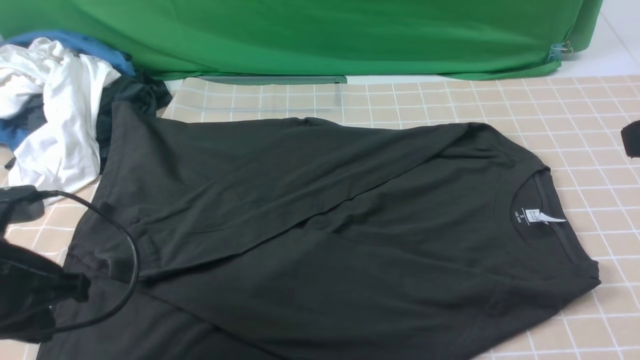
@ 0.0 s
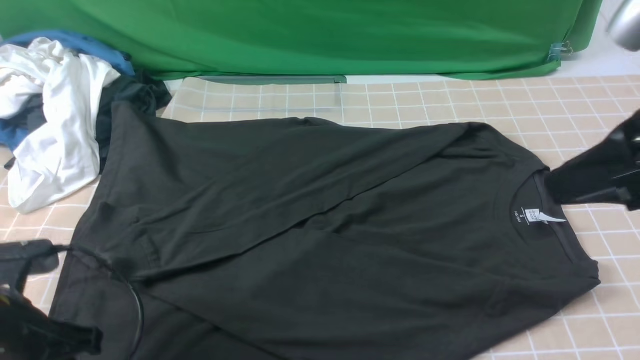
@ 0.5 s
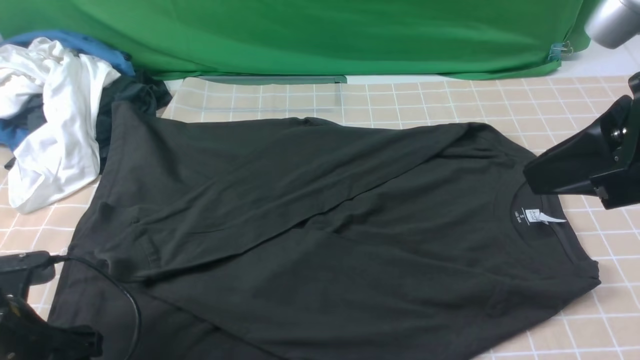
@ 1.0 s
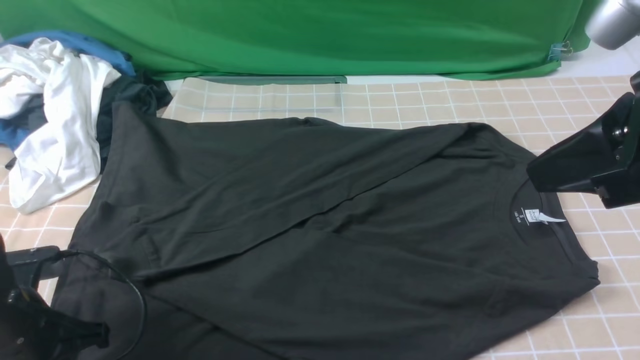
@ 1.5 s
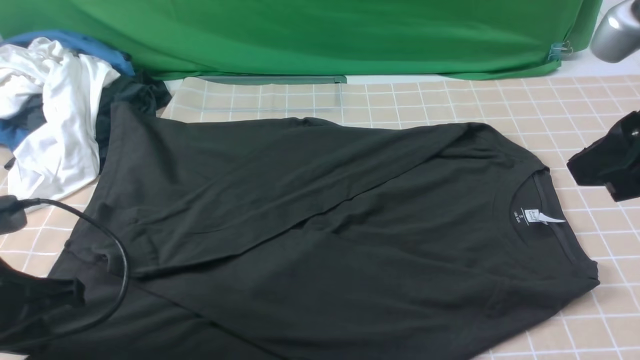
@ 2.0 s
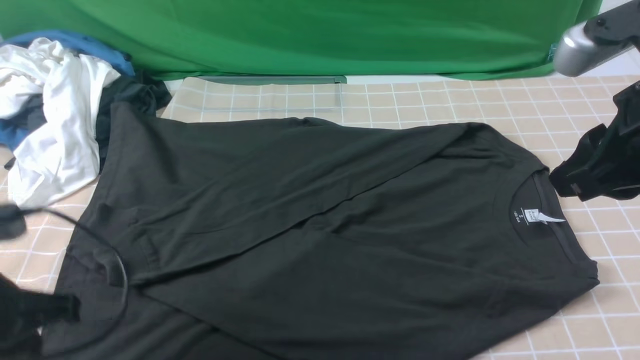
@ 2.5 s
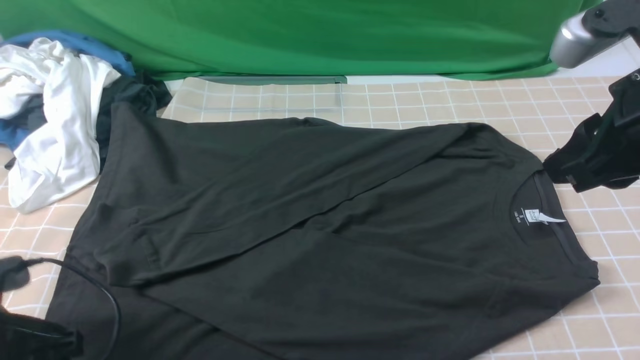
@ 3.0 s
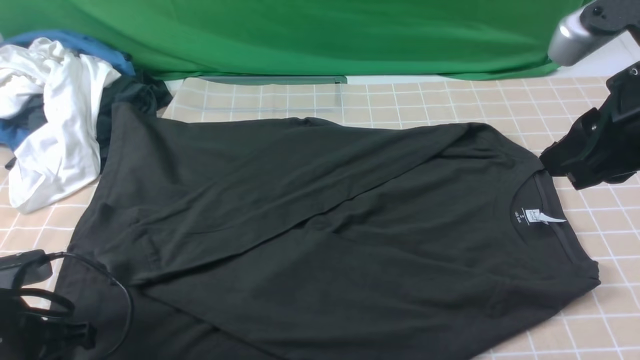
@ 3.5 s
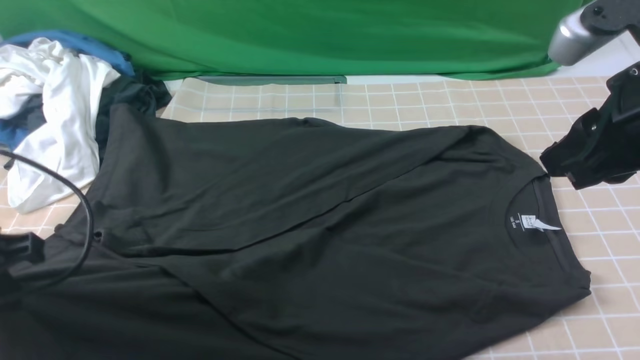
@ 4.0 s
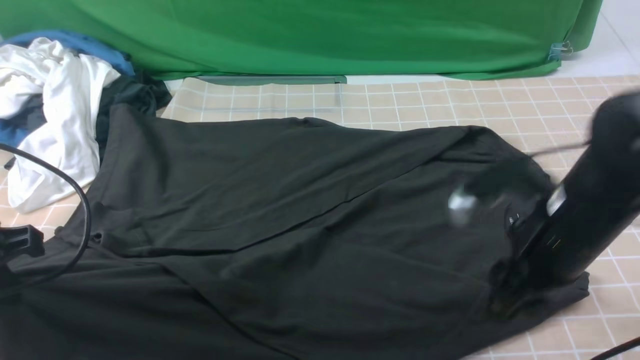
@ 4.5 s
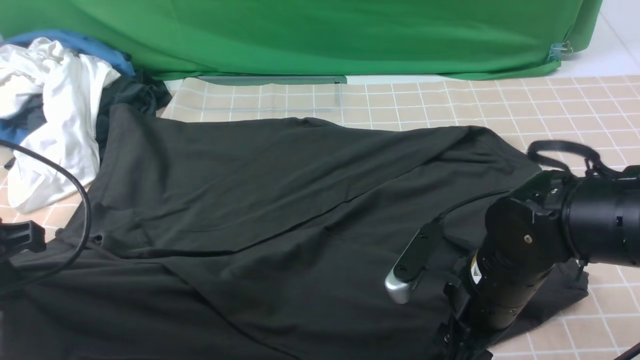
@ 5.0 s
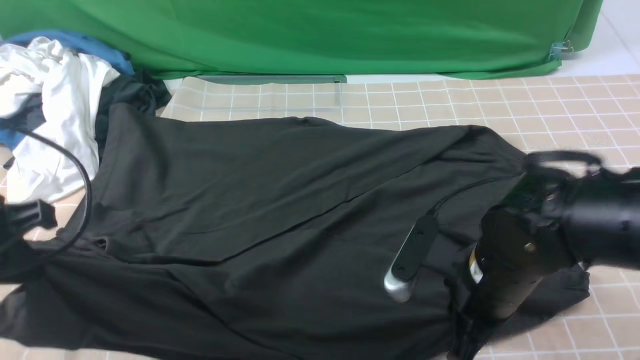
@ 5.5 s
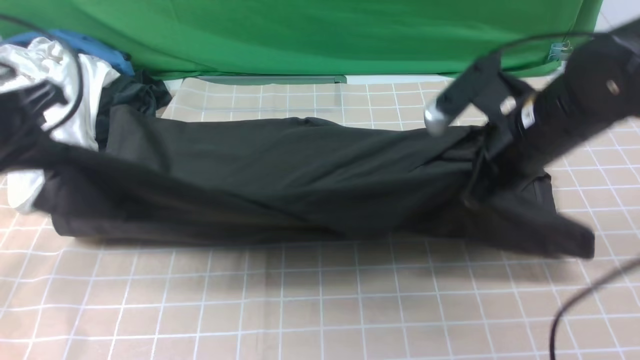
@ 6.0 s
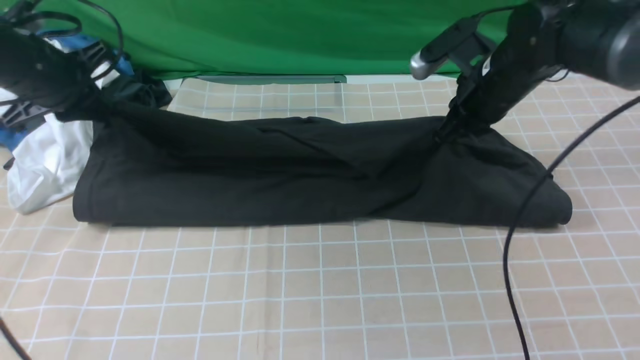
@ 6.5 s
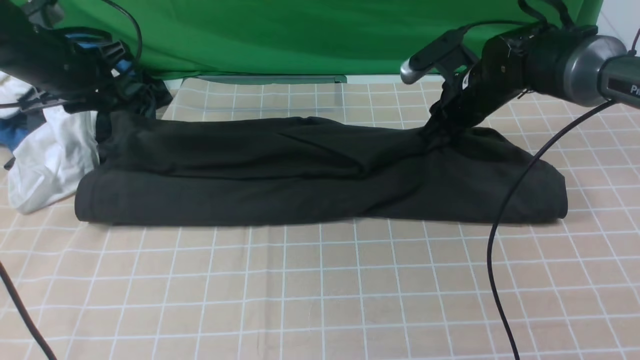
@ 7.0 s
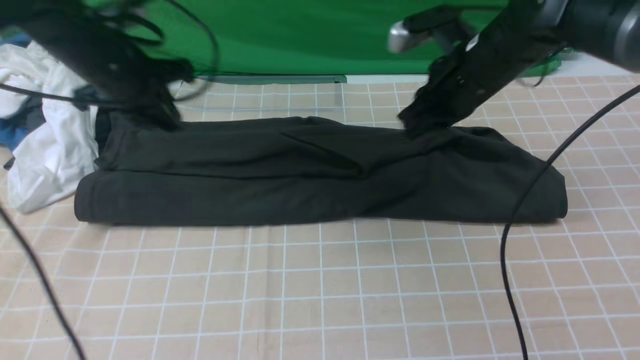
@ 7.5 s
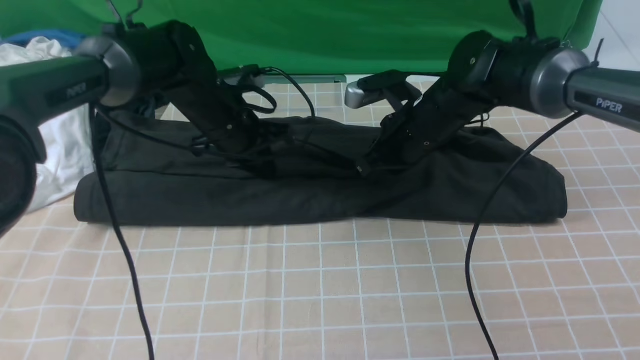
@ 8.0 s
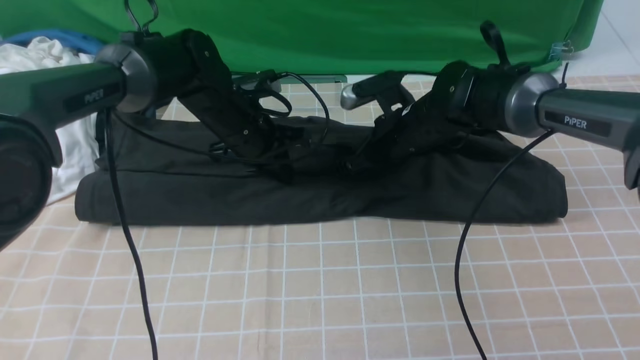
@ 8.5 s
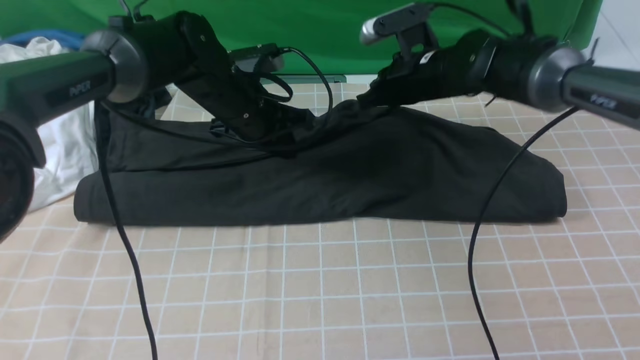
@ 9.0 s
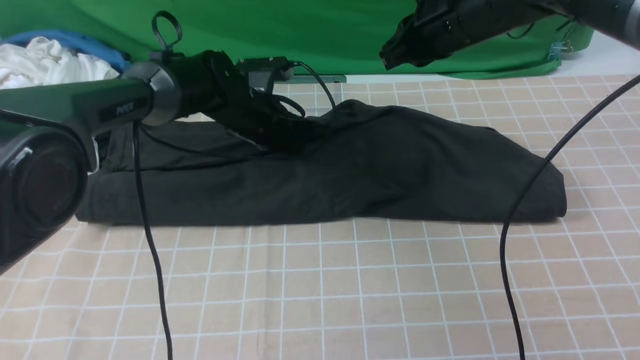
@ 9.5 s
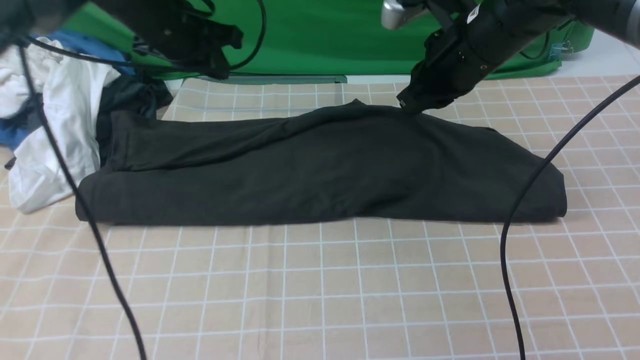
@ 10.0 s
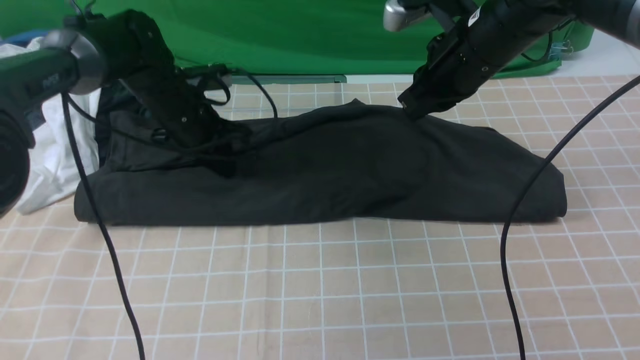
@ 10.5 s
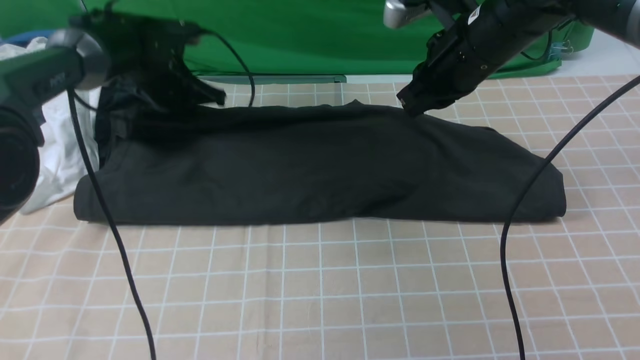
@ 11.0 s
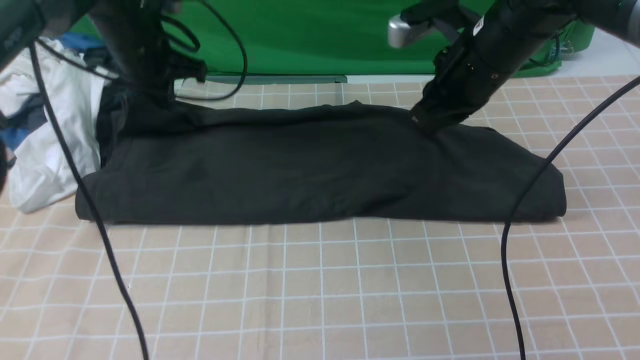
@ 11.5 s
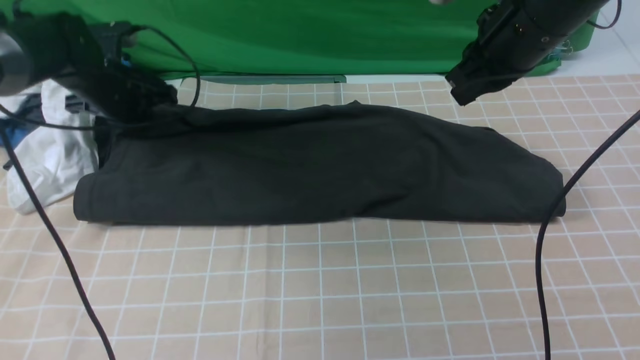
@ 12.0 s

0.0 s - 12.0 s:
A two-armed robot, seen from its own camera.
Step, 0.0 s - 5.0 s: use both arms simultaneously to clamp the lower edge of the clothing fabric.
Step, 5.5 s - 11.0 s: use both arms to drag the lower edge of the fabric forward and fold it over the upper edge.
0.0 s - 2.0 s: The left gripper opens, then closes again.
2.0 s - 4.0 s: The left gripper opens and closes again.
4.0 s - 6.0 s: The left gripper moves forward, some 10 cm; the right gripper moves forward and downward, some 10 cm, and opens, then closes once more.
6.0 s - 8.0 s: The left gripper goes roughly 25 cm to the right, forward and downward, while the right gripper is displaced forward, downward and to the left by roughly 15 cm, and opens, then closes again.
8.0 s - 10.0 s: The left gripper goes approximately 10 cm upward and to the left, while the right gripper moves upward, some 10 cm.
10.0 s - 12.0 s: The right gripper changes place by approximately 5 cm. Meanwhile the left gripper moves to the left and downward, roughly 10 cm.

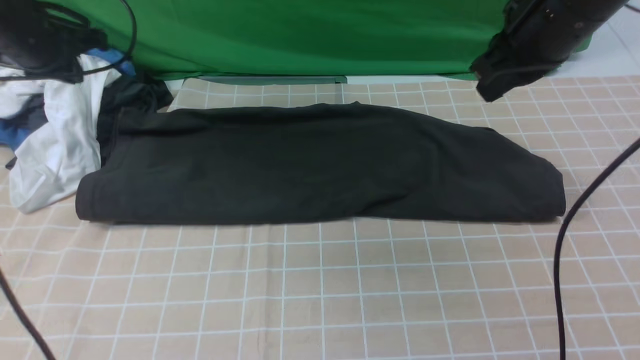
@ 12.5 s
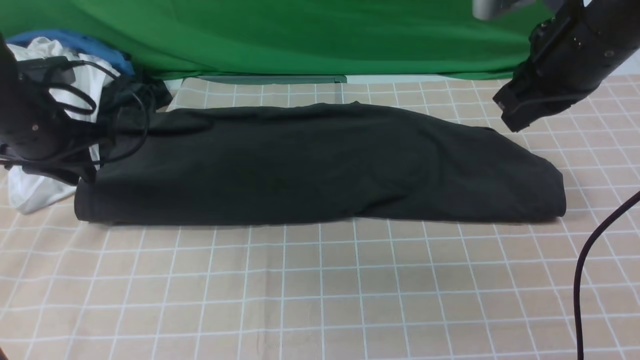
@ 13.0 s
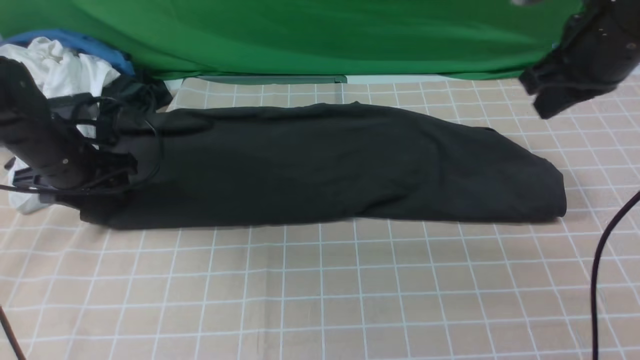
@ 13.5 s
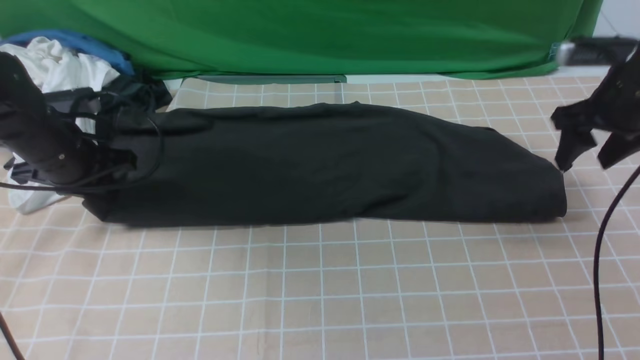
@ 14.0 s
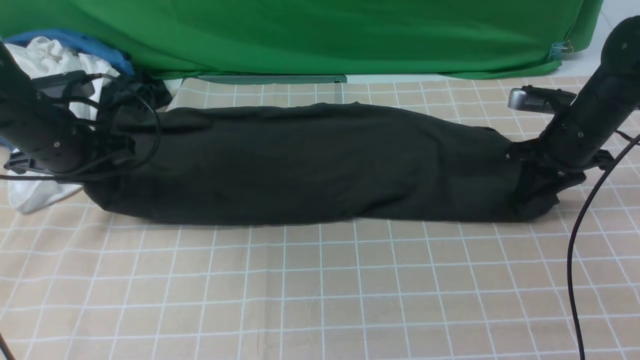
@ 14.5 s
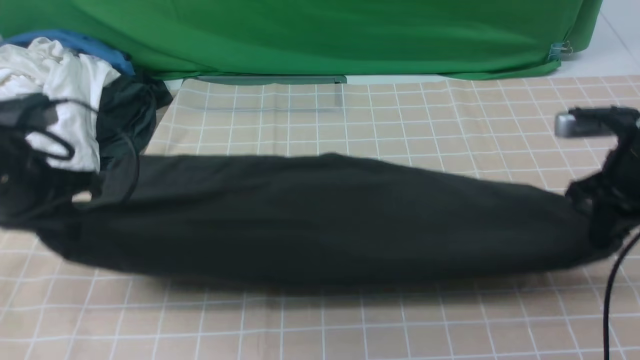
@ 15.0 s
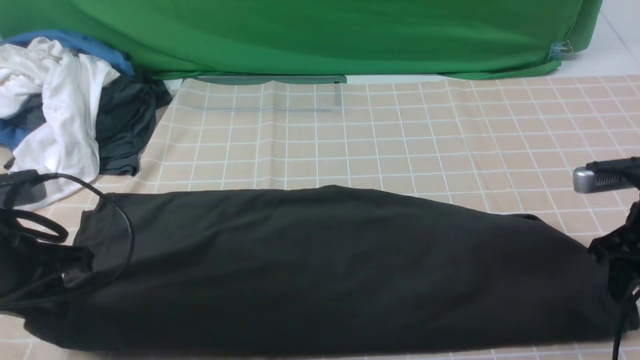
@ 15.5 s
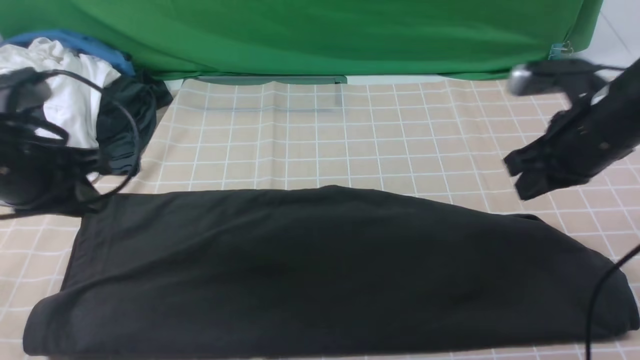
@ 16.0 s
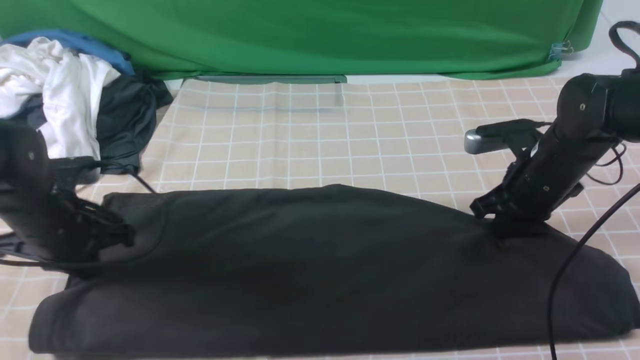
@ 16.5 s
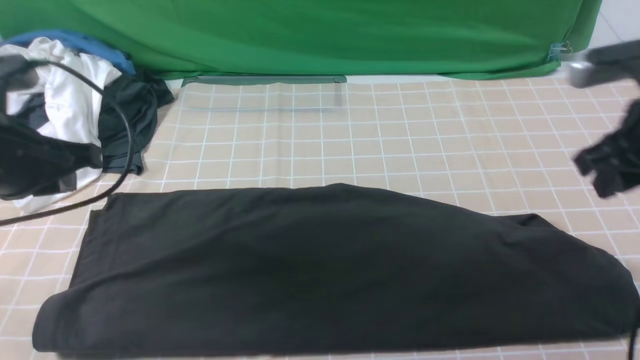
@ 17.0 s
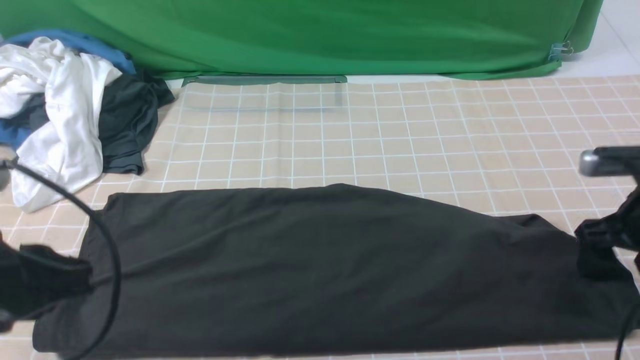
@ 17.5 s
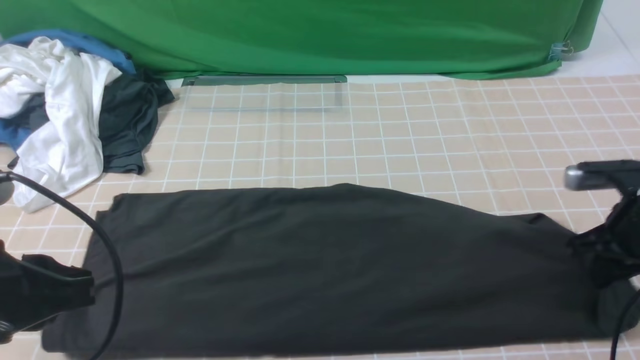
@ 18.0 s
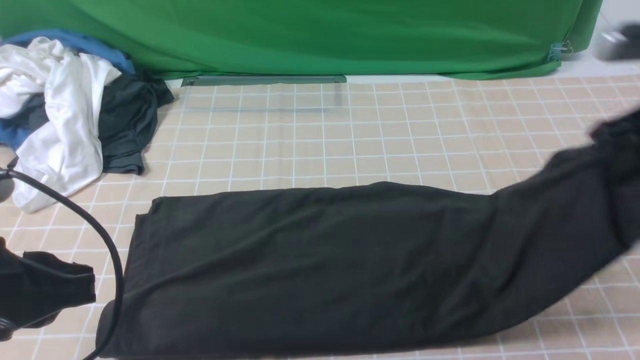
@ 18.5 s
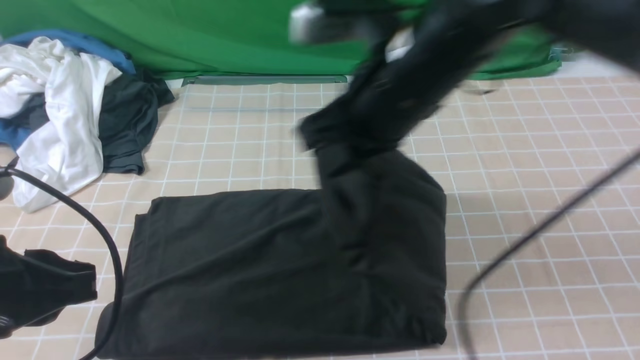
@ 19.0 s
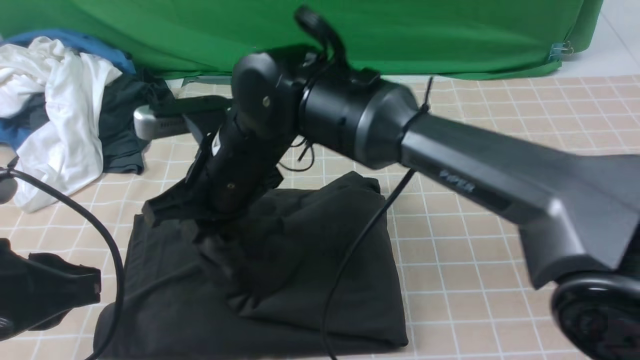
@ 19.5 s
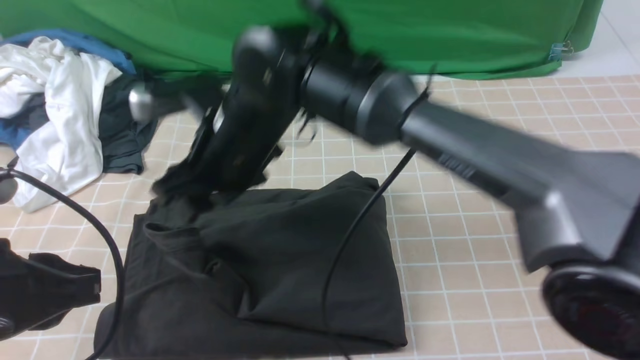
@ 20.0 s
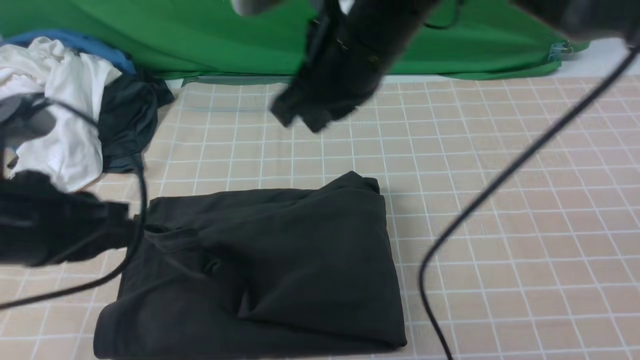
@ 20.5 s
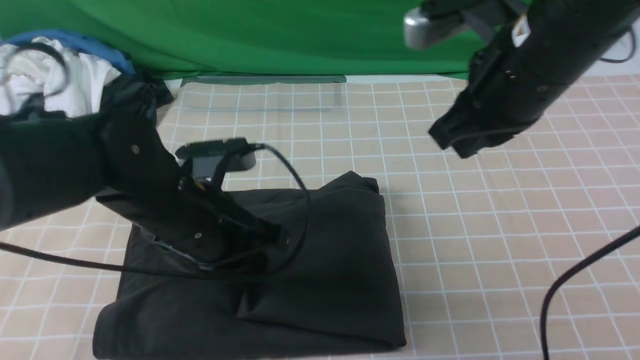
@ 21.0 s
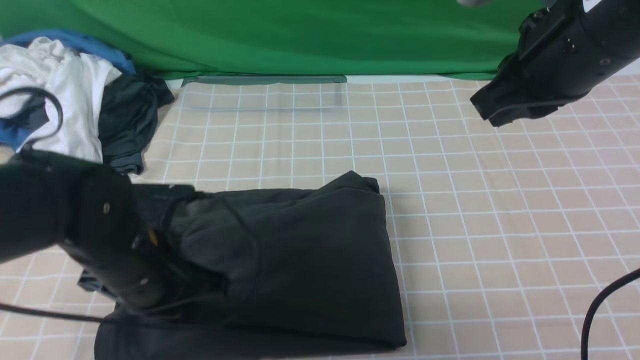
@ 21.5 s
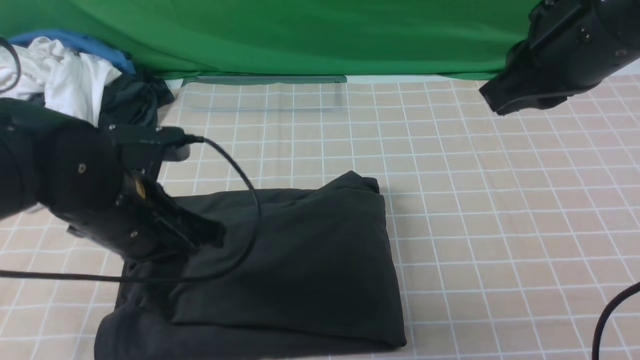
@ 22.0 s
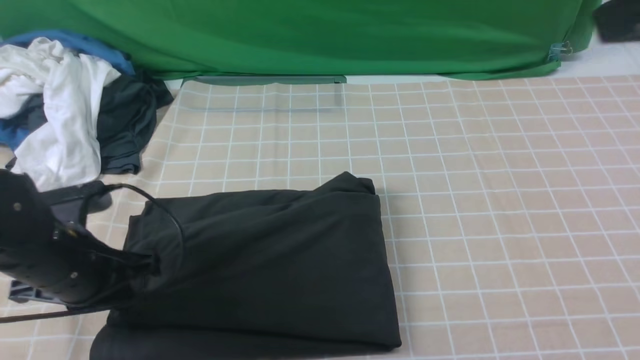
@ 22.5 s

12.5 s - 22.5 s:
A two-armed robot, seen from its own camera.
Step, 12.5 s - 17.5 s: use the right arm to clamp the right edge of the fabric.
Step, 18.0 s - 20.0 s: use the right arm to drag the right edge of the fabric to the left and folds it over the left edge.
12.5 s - 14.5 s: The left gripper heads backward and downward, covering about 10 cm, and opens, then closes again. The right gripper moves downward and to the right, some 20 cm, and opens up.
14.5 s - 16.5 s: The right gripper shifts some 10 cm to the left and backward, and closes up; the left gripper is displaced backward by roughly 5 cm.
16.5 s - 18.5 s: The left gripper is displaced backward and upward by about 20 cm. The right gripper goes up and down, approximately 15 cm each way, reversing 2 times, and opens, then closes again.
18.5 s - 20.5 s: The left gripper heads forward, covering roughly 5 cm; the right gripper goes roughly 20 cm to the left, and opens, then closes again.
20.5 s - 22.5 s: The right gripper travels to the right, backward and upward by roughly 25 cm; the left gripper moves downward, approximately 10 cm, and goes to the right and returns, about 10 cm each way.
